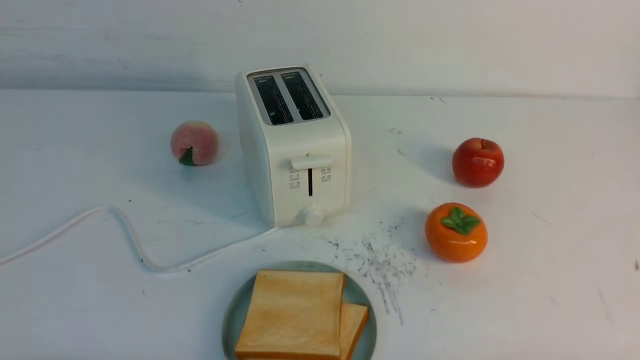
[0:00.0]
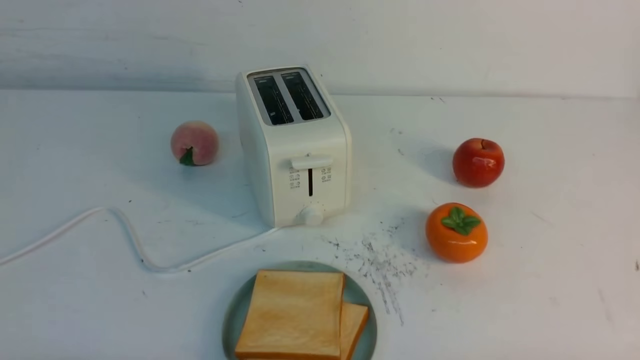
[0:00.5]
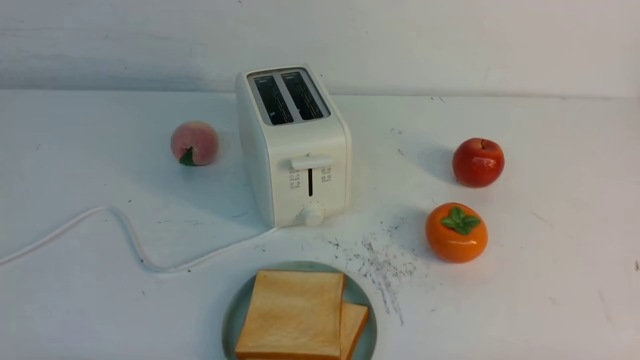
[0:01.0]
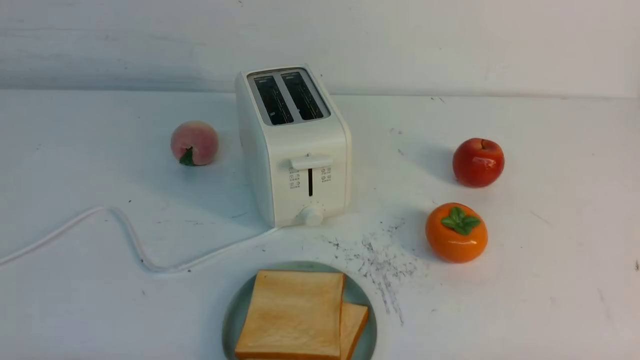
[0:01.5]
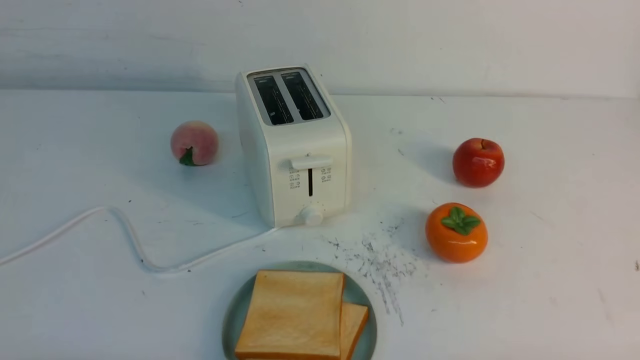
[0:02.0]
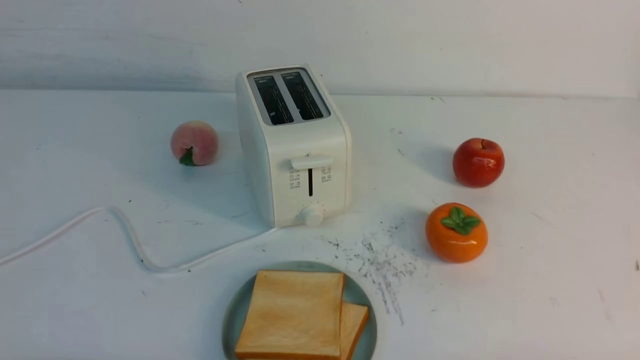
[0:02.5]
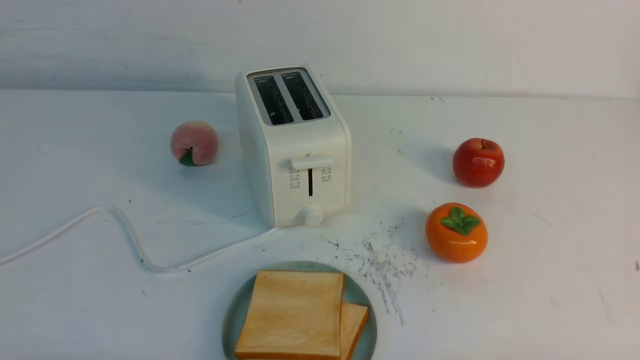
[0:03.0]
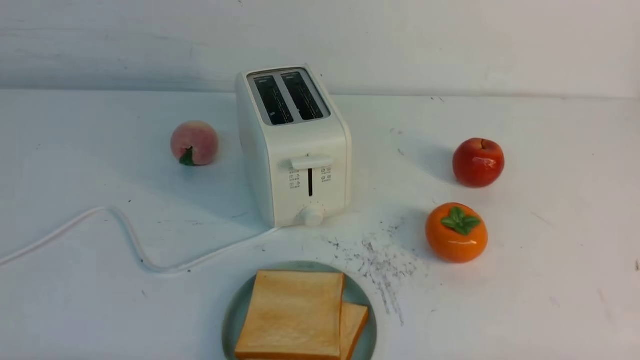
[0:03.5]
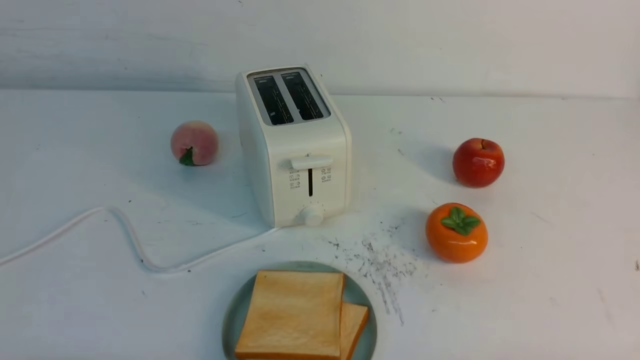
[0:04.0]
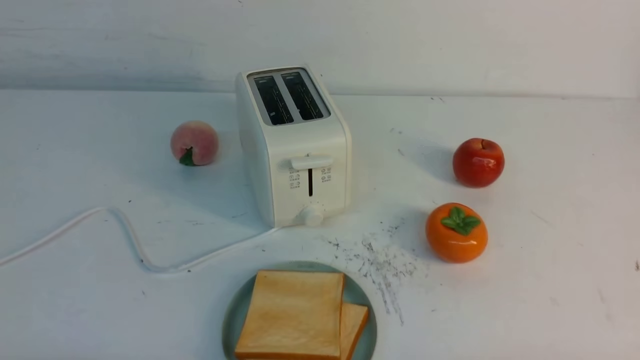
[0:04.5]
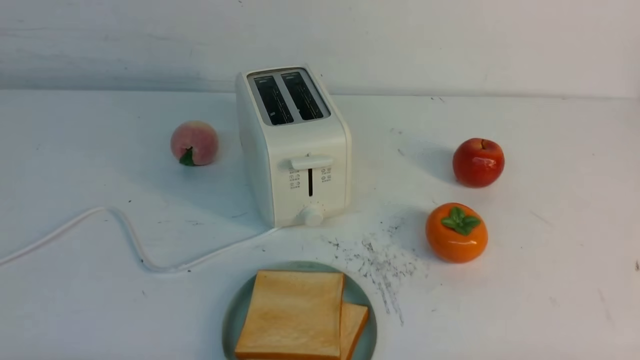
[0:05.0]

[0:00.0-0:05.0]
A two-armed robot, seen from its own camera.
Task of the whole recording: take toasted bread from bread machine on white table place on plate.
0:00.0 to 0:05.0: The two grippers keep their place.
